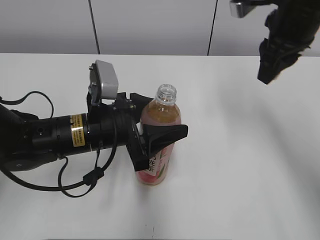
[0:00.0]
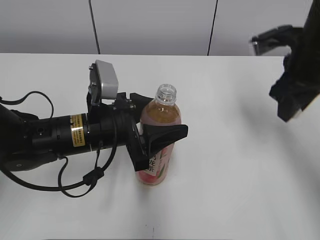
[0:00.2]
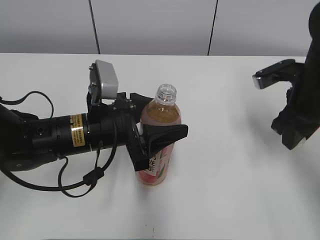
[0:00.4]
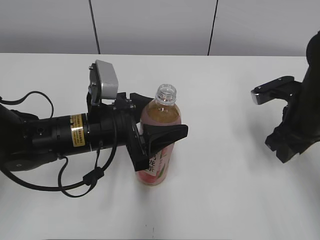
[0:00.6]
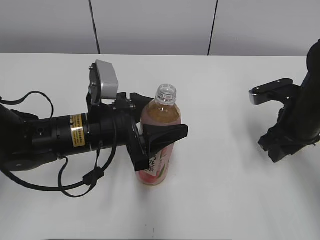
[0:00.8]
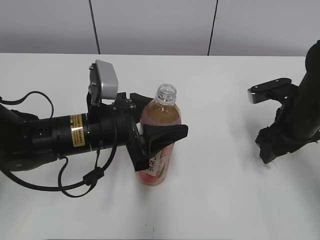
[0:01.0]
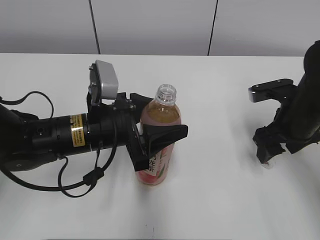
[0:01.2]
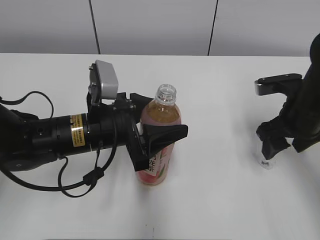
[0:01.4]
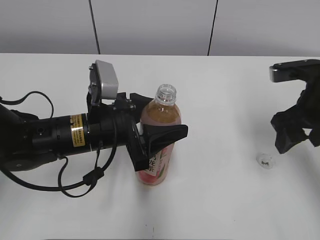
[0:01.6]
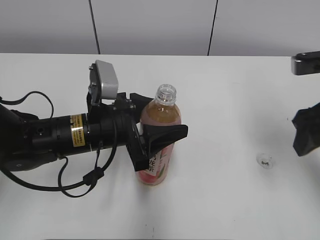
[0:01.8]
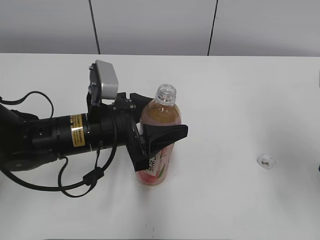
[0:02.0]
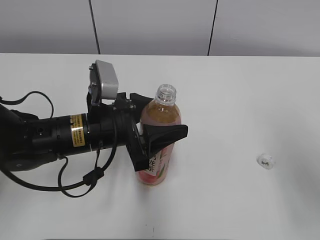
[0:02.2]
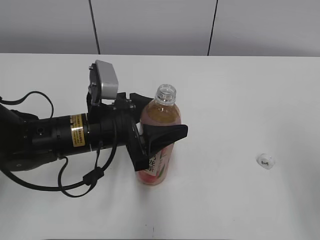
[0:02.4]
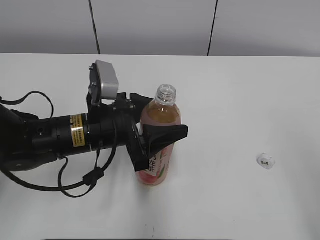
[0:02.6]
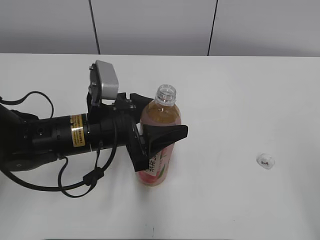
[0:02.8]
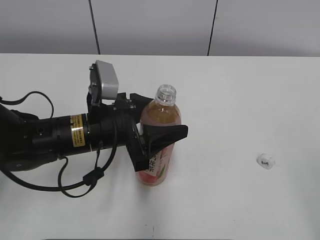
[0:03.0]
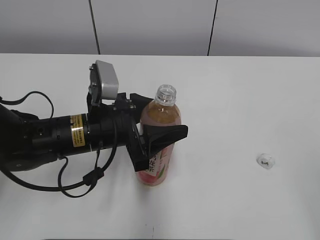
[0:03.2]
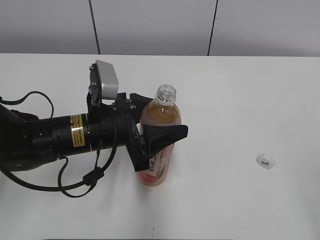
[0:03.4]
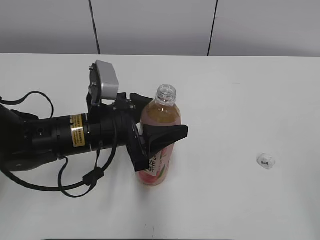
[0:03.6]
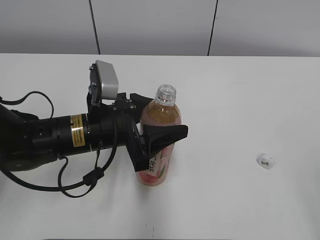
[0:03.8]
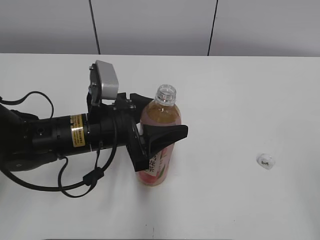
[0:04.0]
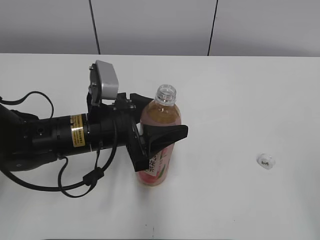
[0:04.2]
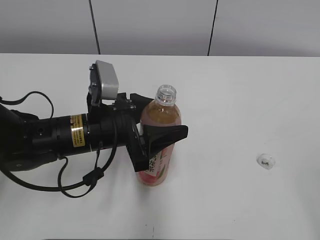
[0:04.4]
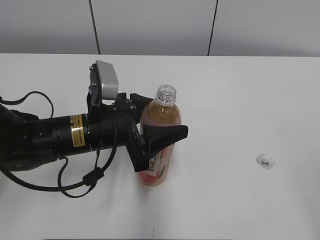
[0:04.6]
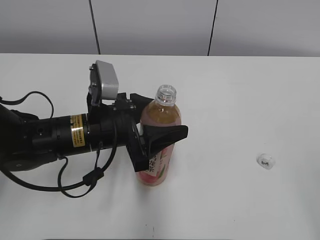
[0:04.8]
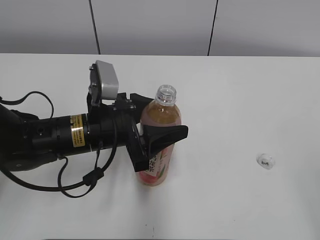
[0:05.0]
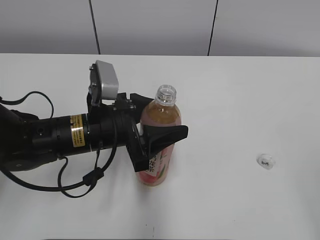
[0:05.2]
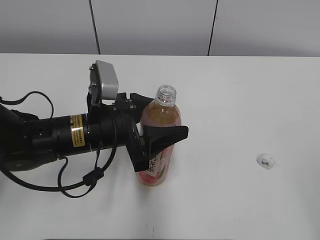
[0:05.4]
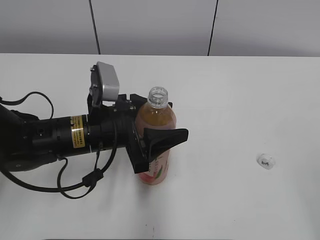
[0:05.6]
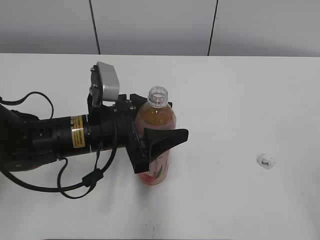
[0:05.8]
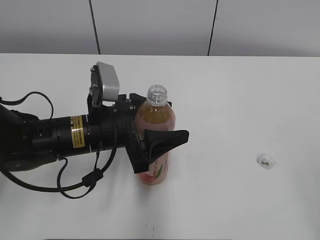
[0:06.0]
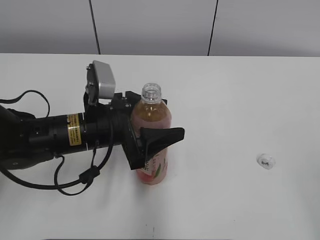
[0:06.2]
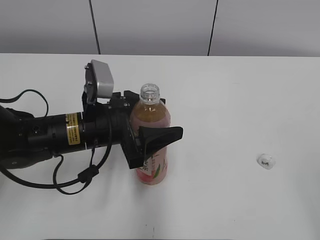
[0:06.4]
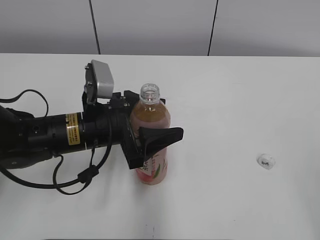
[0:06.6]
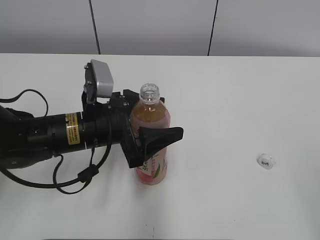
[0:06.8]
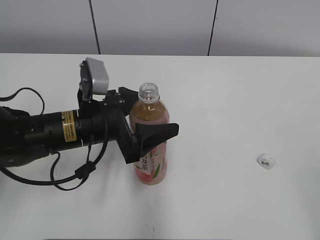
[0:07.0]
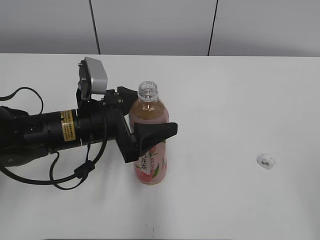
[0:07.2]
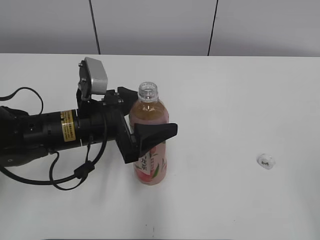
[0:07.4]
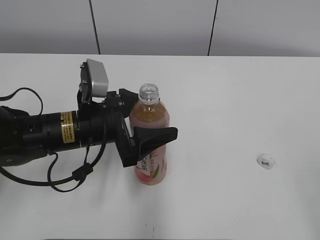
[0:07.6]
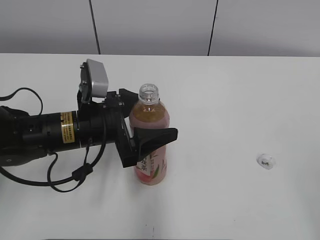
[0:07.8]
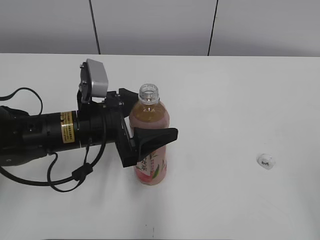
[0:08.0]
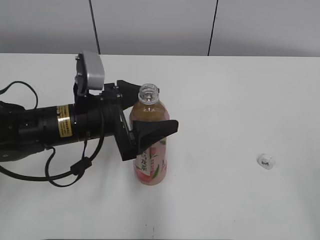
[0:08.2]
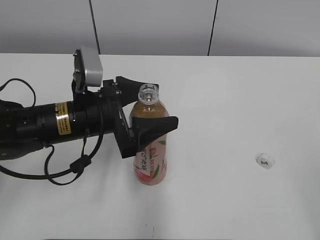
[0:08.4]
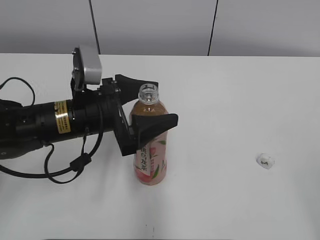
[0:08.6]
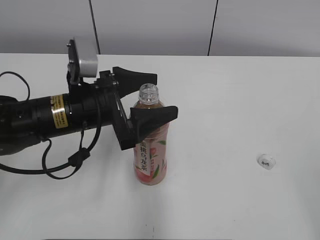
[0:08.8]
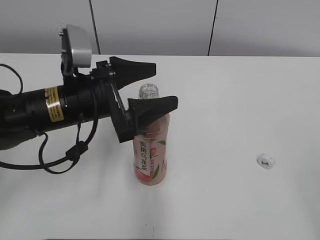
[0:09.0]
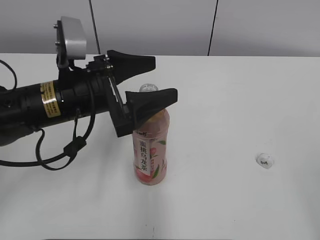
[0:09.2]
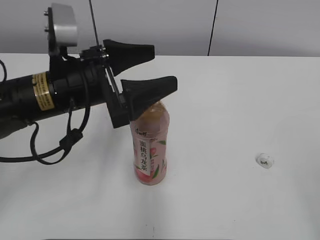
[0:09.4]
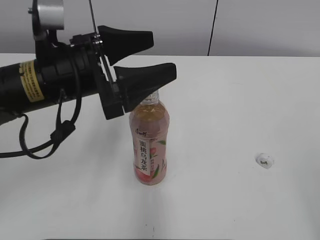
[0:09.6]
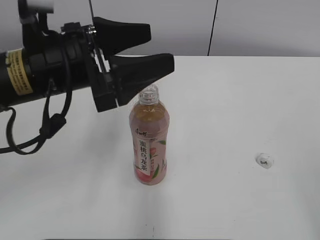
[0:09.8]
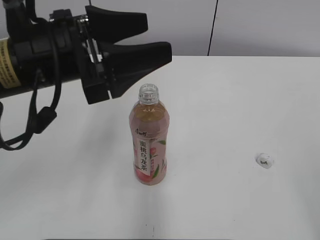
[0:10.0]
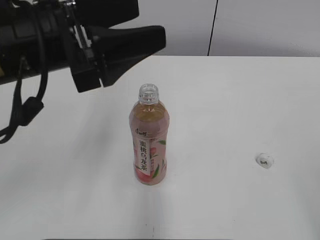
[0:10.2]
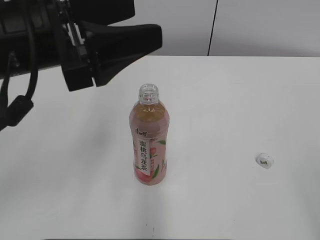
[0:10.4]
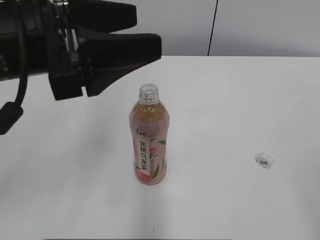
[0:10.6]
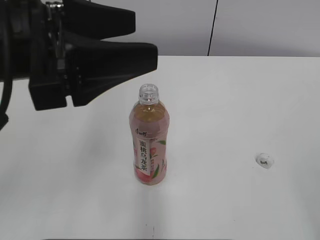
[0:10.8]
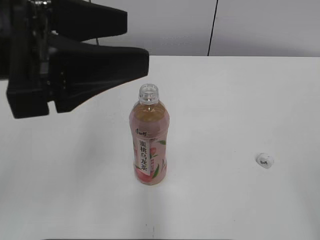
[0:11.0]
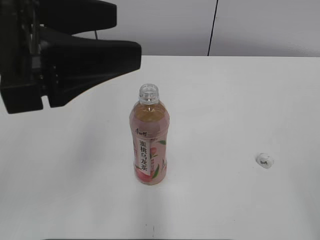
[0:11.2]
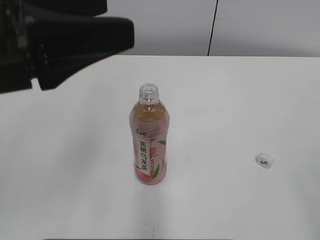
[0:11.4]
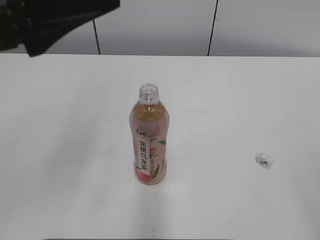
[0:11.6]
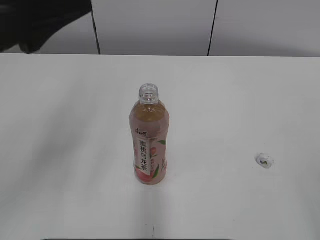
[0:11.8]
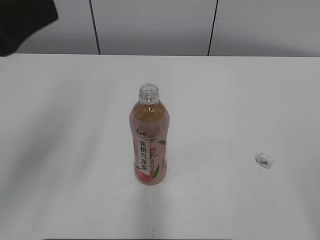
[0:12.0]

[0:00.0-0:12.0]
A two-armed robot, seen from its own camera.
0:00.0 to 0:01.6: The right gripper goes some 15 cm downward, backward and to the right, and opens its fingers.
0:01.6 to 0:03.0: The right gripper goes approximately 25 cm backward.
0:04.4 to 0:06.0: The two grippers keep their place.
0:06.0 to 0:09.0: The grippers move only a little.
0:09.0 to 0:10.4: The left gripper goes roughly 10 cm upward.
0:10.4 to 0:12.0: The left gripper shifts some 5 cm to the left.

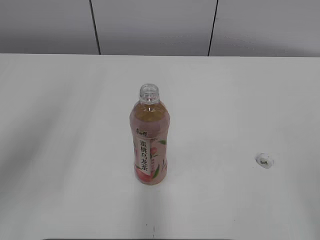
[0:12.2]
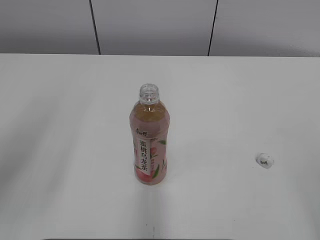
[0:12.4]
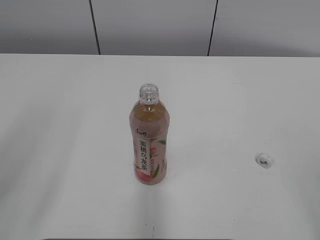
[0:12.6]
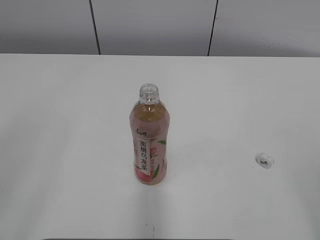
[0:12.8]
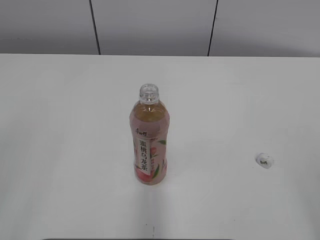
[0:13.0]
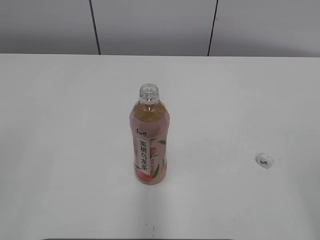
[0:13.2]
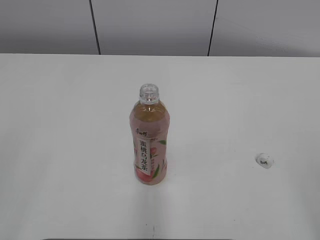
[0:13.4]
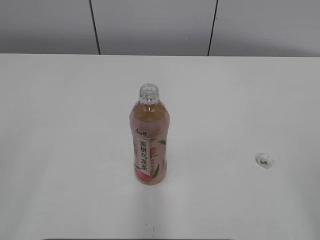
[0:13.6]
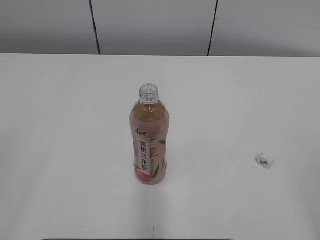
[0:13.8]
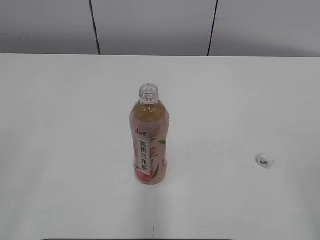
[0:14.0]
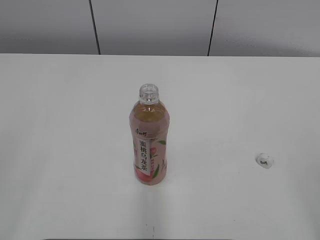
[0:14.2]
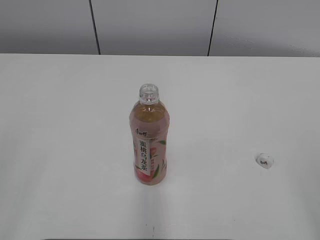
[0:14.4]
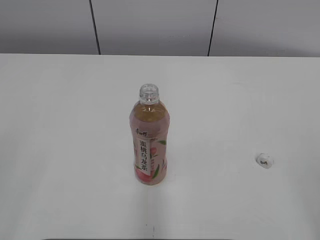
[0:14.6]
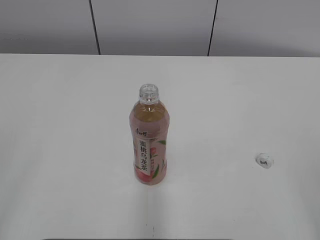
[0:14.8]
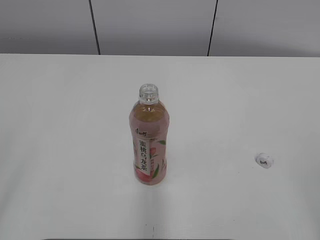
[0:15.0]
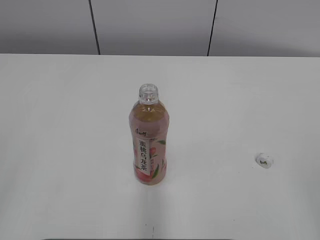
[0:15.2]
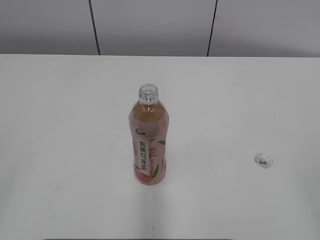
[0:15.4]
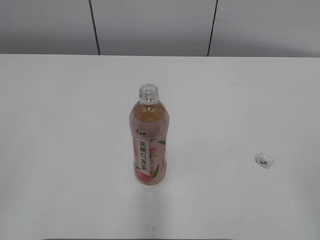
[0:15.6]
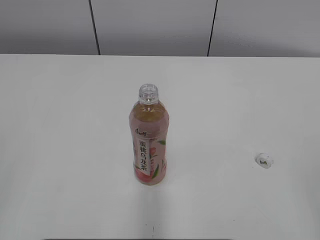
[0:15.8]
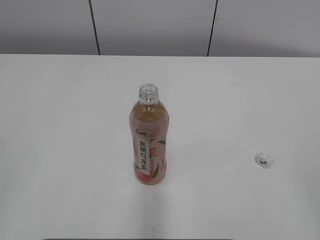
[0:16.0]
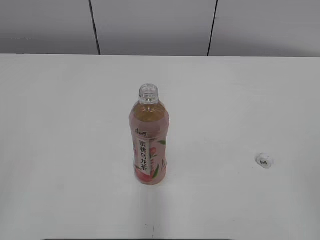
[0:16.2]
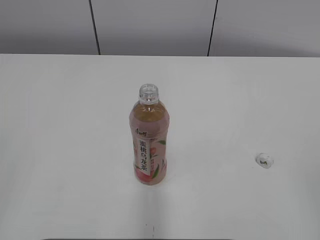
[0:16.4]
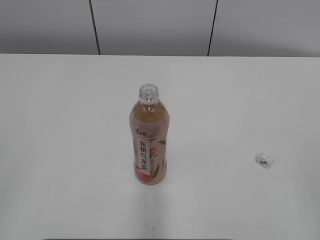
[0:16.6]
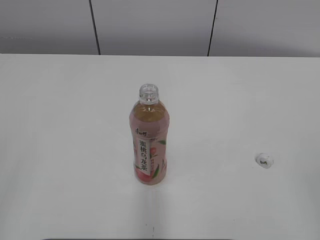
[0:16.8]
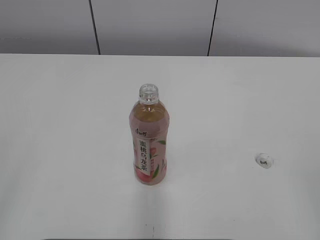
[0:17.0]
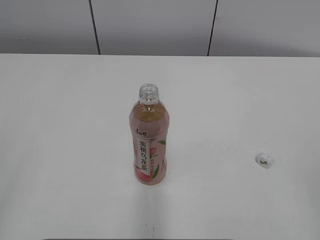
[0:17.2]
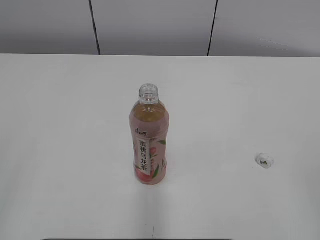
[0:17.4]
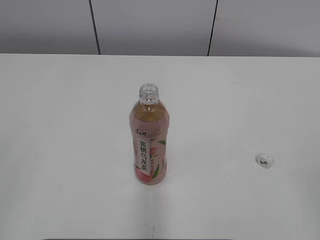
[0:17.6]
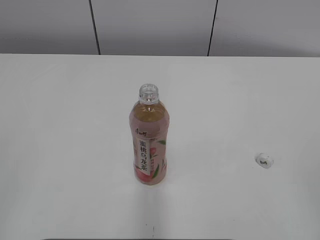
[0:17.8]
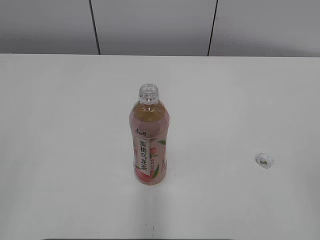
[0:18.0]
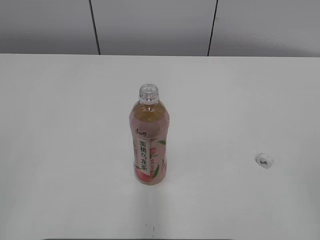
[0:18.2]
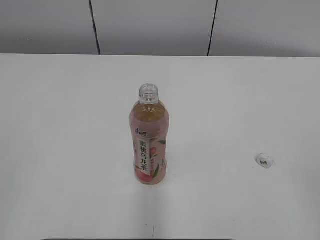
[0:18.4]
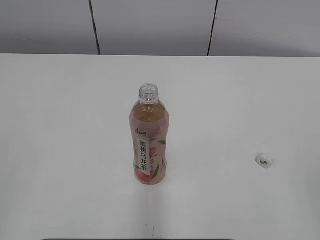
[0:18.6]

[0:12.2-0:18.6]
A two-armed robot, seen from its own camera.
0:12.2 to 0:13.8: The left gripper moves backward and to the left, approximately 15 cm.
0:15.4 to 0:18.6: Neither gripper changes place.

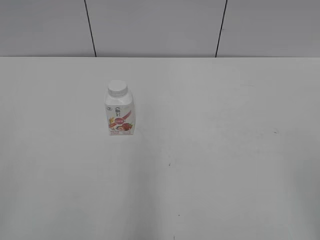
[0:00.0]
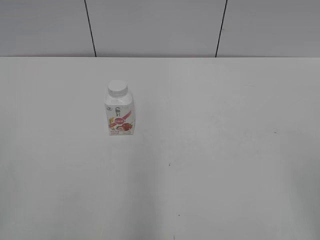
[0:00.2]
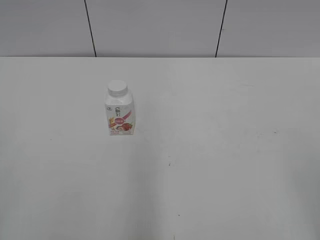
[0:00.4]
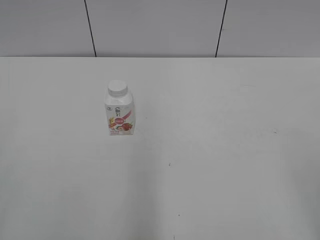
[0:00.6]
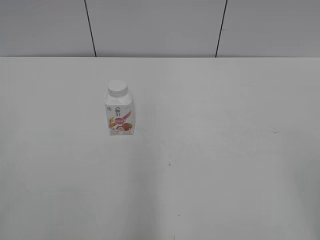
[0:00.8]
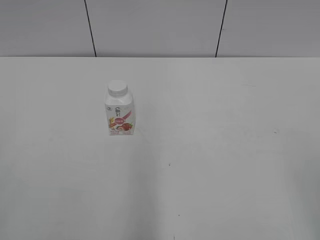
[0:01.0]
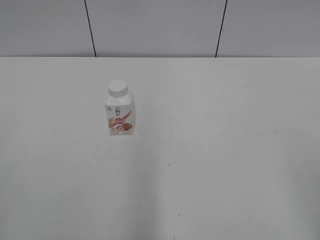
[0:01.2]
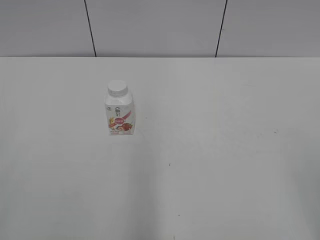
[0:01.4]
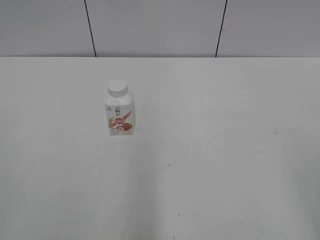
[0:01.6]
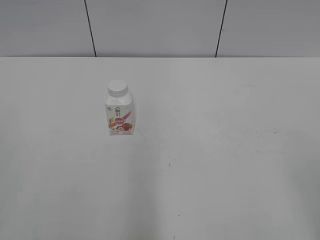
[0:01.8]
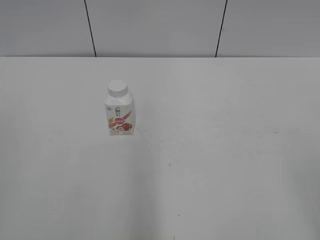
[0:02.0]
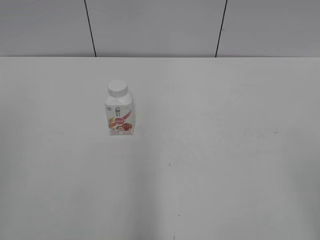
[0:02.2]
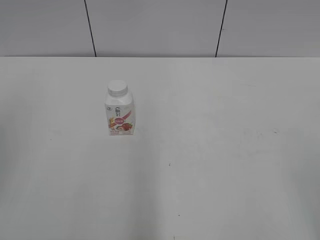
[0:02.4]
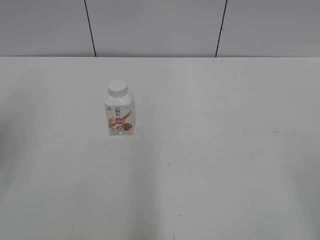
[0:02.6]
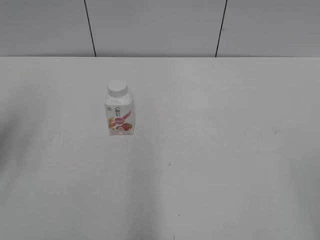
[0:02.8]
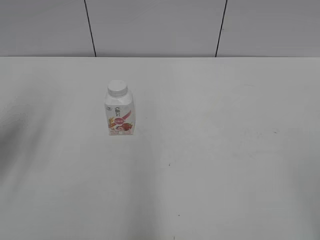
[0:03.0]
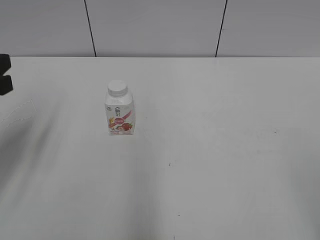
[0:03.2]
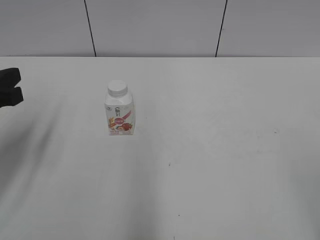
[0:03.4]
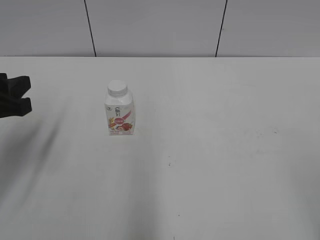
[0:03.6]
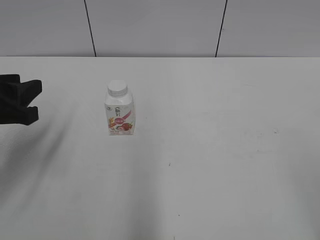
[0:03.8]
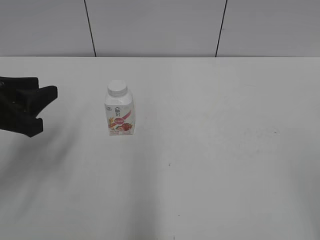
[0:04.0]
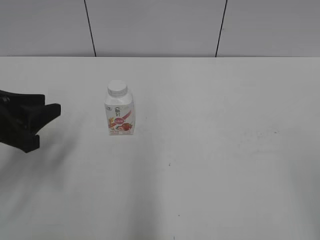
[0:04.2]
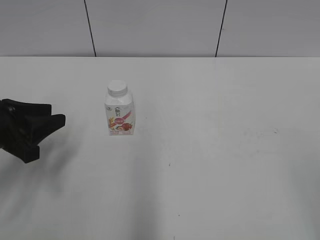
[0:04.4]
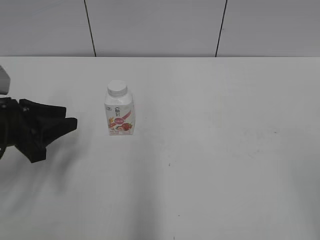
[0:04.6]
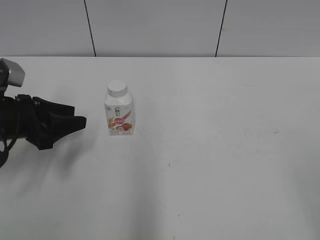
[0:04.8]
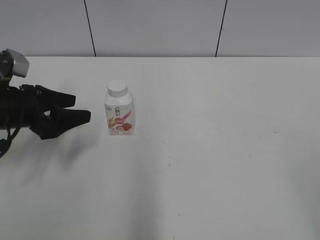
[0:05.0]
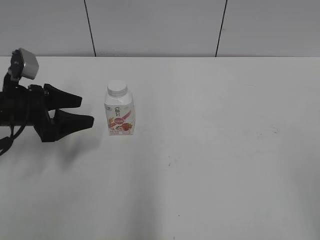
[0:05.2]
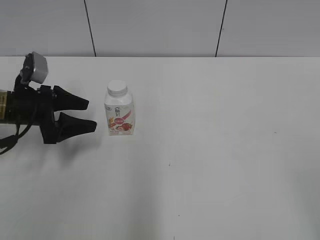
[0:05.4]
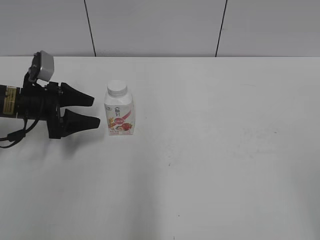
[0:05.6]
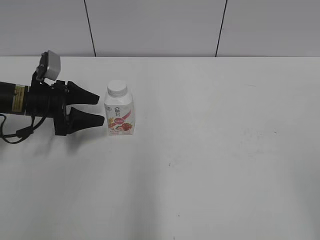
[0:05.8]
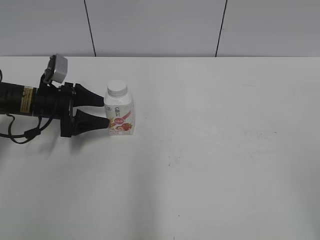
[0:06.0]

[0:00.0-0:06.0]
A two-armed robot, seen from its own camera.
0:01.6 to 0:03.0: The left gripper is displaced forward by about 20 cm.
0:03.0 to 0:04.4: The left gripper is displaced downward by approximately 10 cm.
0:04.4 to 0:06.0: The left gripper is displaced forward and downward by about 15 cm, and opens up.
